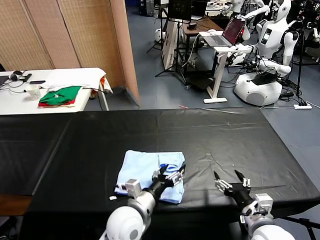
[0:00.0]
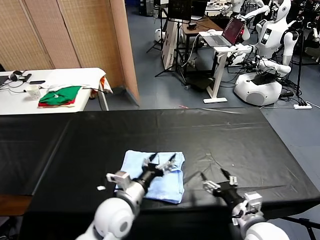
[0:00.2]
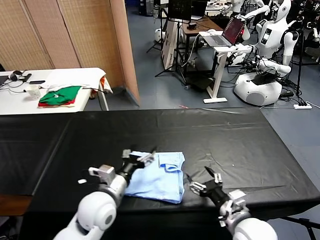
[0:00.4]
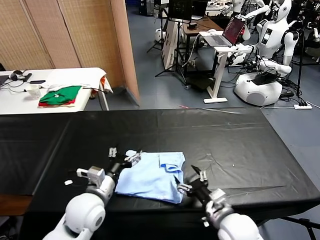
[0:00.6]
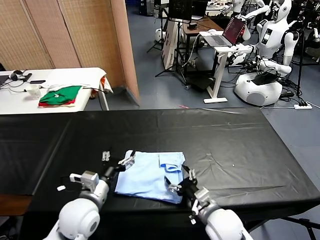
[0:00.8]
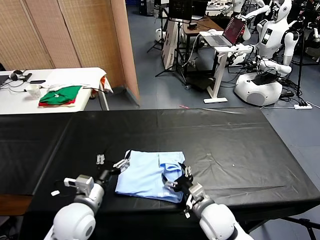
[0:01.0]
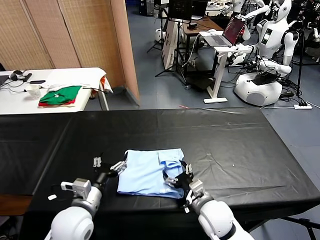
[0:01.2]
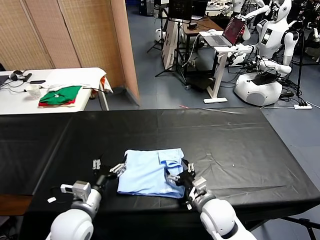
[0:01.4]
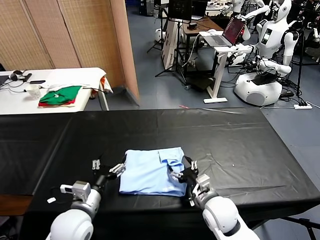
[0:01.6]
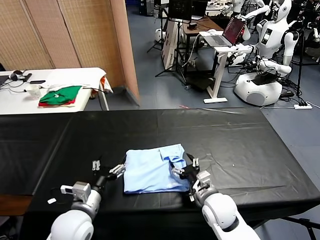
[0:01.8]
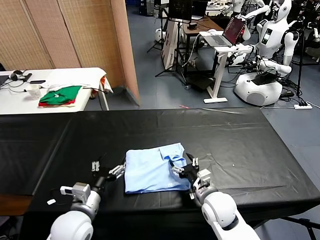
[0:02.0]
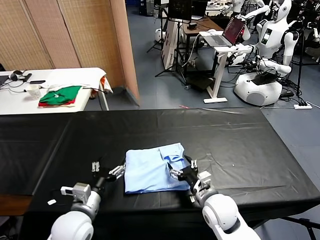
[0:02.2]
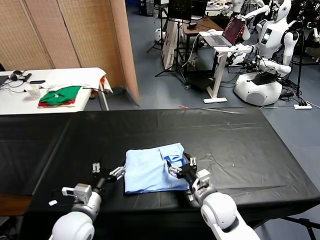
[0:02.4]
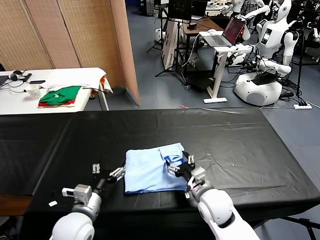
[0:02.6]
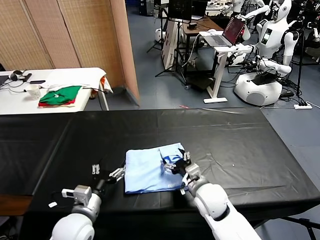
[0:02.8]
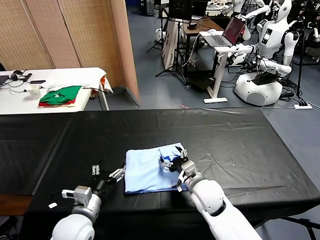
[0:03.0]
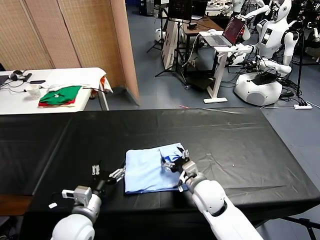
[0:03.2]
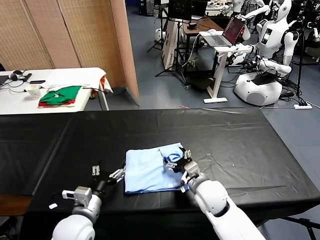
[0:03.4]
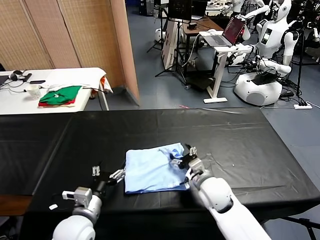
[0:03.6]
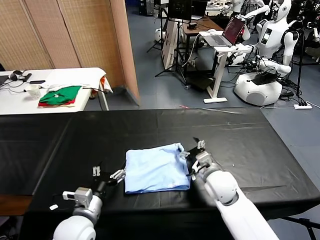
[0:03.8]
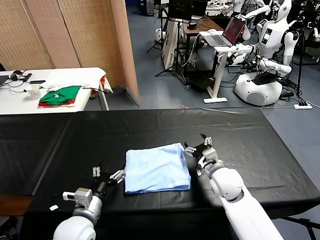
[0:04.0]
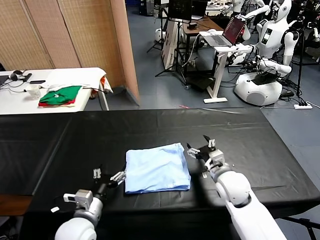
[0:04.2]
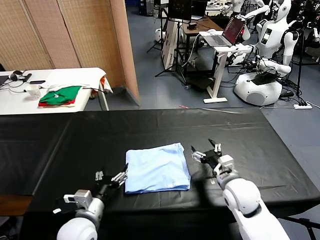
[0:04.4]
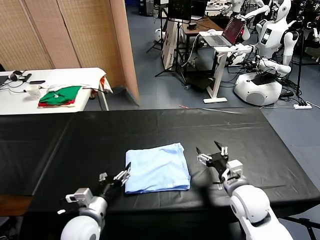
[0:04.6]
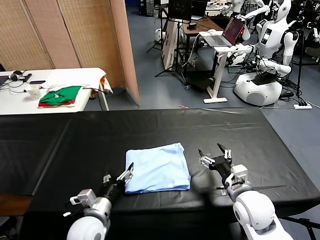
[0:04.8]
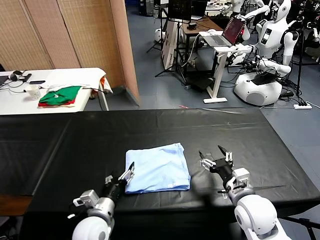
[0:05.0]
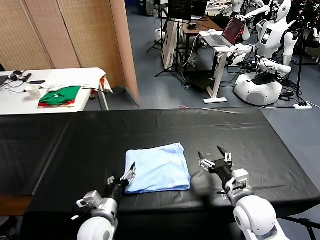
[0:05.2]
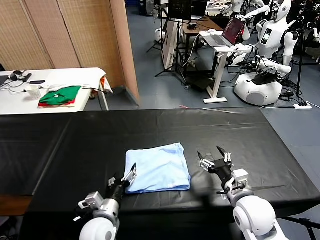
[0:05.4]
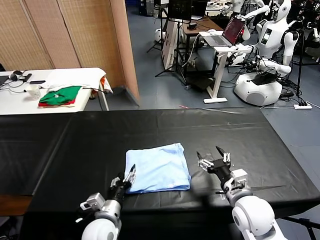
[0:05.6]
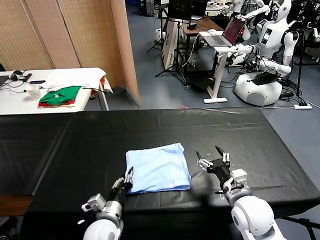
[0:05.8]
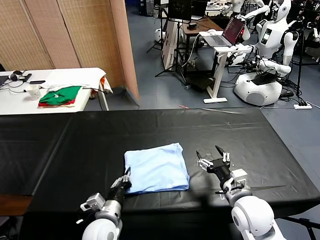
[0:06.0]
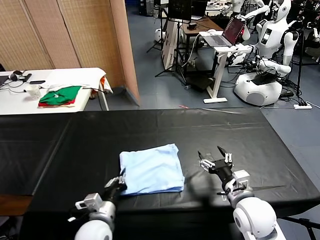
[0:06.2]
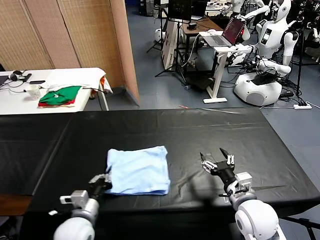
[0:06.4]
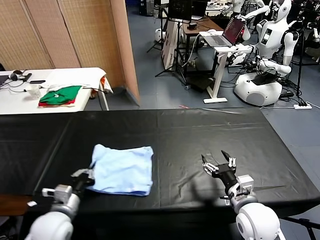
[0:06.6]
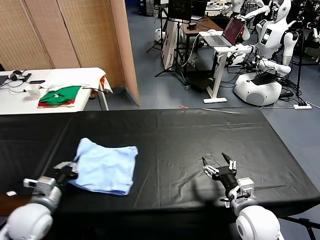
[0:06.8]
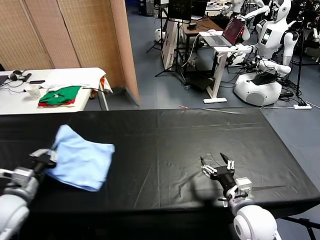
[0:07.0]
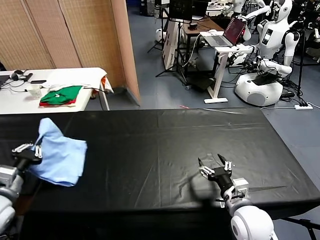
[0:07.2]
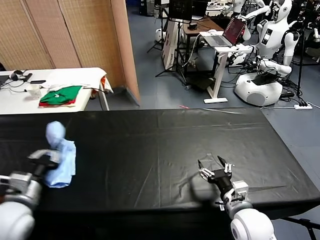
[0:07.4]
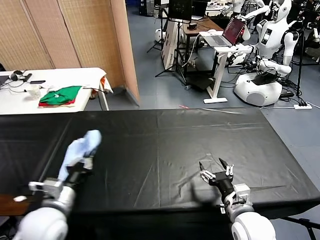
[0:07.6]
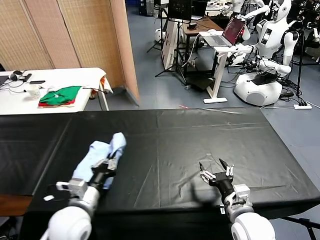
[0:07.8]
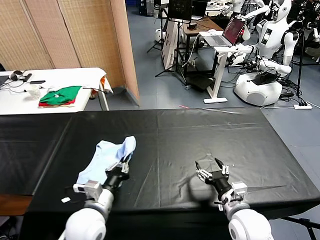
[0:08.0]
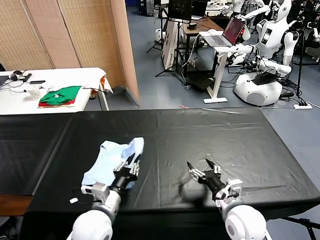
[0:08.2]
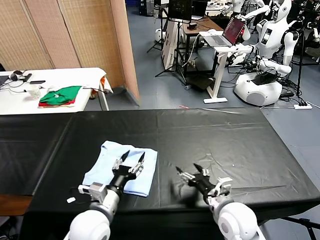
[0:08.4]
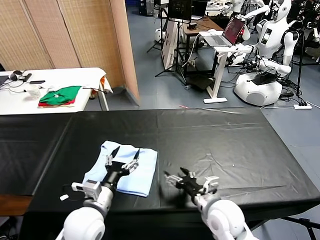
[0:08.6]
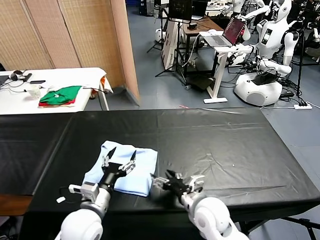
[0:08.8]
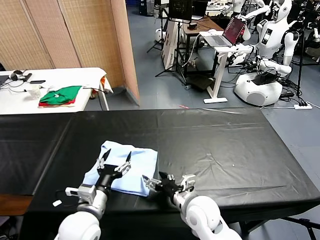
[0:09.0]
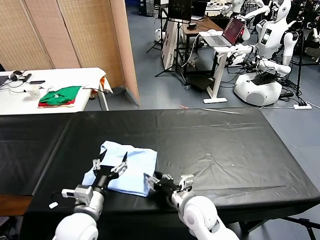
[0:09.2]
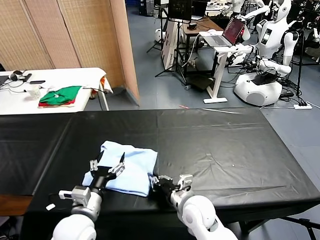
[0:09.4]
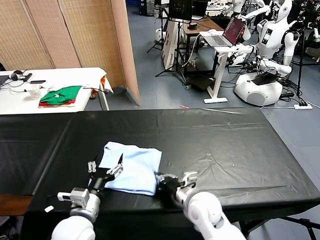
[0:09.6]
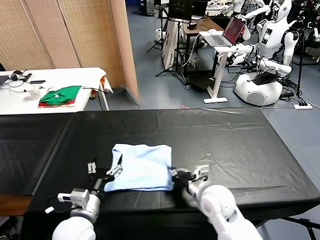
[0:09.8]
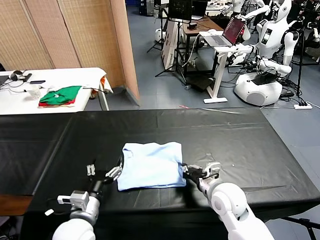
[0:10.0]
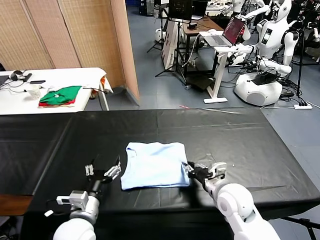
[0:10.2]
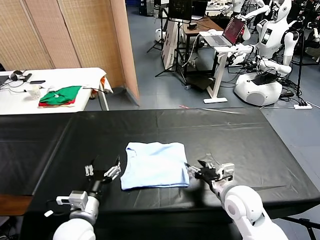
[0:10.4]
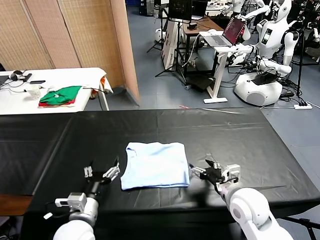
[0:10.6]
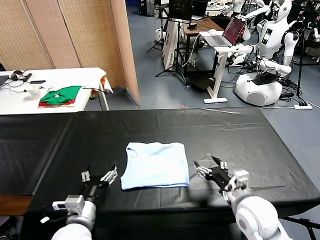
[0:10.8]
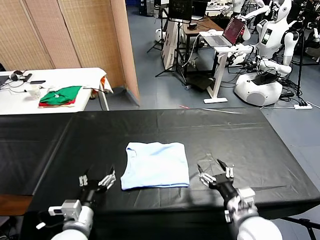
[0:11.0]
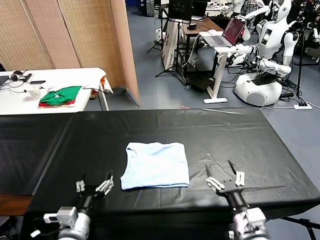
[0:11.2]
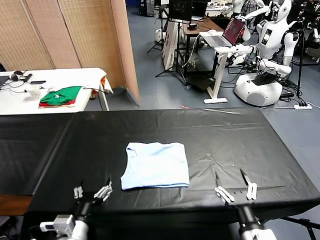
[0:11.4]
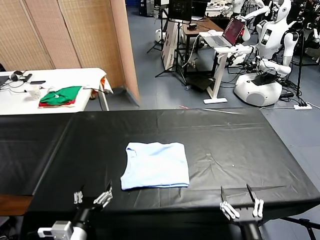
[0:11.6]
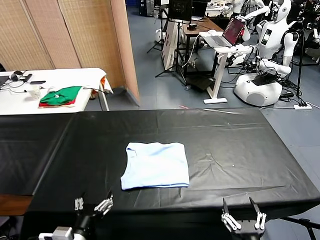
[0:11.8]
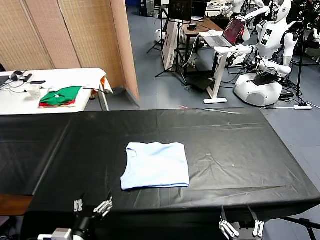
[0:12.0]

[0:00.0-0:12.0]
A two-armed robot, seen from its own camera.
Task of the whole recording: fold and organize the clothes.
Step, 0:00.0 to 0:08.2: Flip the folded clothes over with left gripper.
Step, 0:08.4 to 0:10.2: Drag the clothes to the center of the table.
0:00.0 to 0:01.6: The right gripper is displaced forward, to the left and downward by approximately 15 cm. The left gripper travels to the left by some 15 cm.
0:01.6 to 0:03.0: The right gripper moves some 5 cm.
0:03.0 to 0:04.4: The right gripper travels to the right by some 10 cm.
0:04.4 to 0:06.0: The left gripper ends up about 5 cm from where it was, and closes up. The right gripper shifts approximately 5 cm backward.
0:06.0 to 0:07.6: The left gripper goes roughly 20 cm to the left and upward.
0:07.6 to 0:09.0: The right gripper moves to the left and forward, about 15 cm, while the left gripper goes about 10 cm to the right, and opens its fingers.
0:09.0 to 0:10.4: The right gripper moves to the right, about 10 cm, and closes and opens again.
0:10.4 to 0:12.0: The left gripper is displaced backward by roughly 10 cm. Meanwhile the right gripper heads backward, covering roughly 25 cm.
